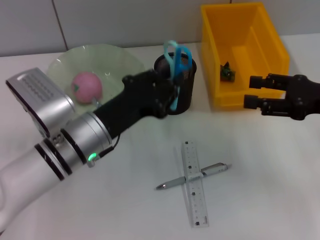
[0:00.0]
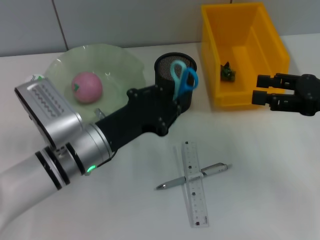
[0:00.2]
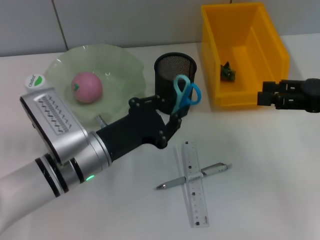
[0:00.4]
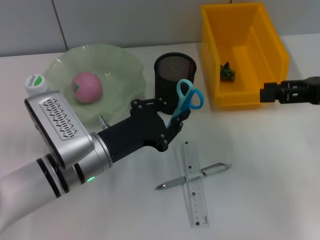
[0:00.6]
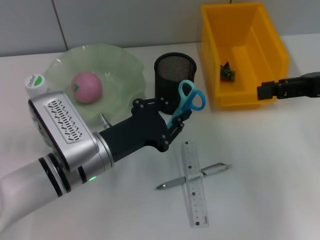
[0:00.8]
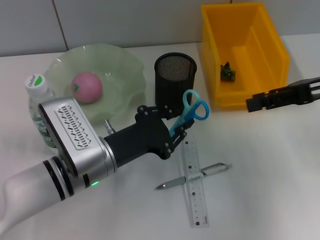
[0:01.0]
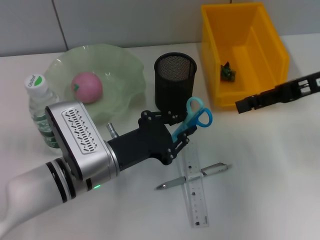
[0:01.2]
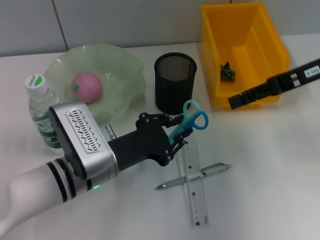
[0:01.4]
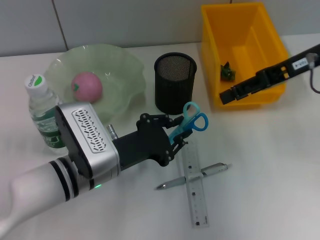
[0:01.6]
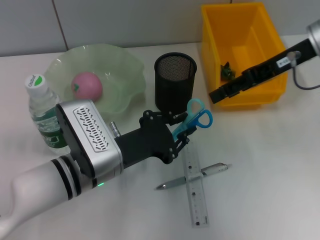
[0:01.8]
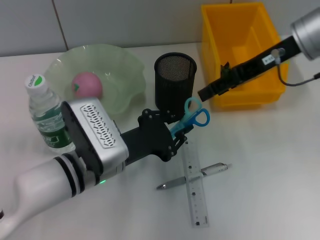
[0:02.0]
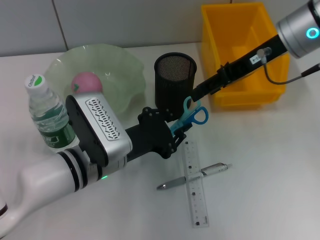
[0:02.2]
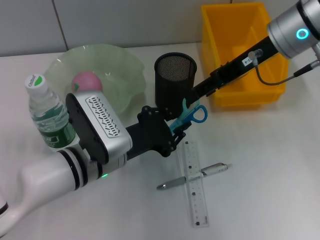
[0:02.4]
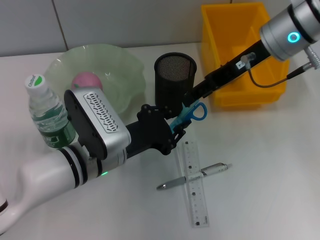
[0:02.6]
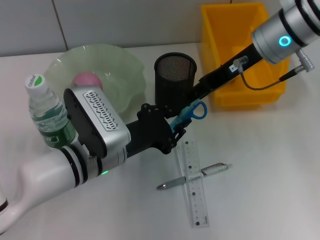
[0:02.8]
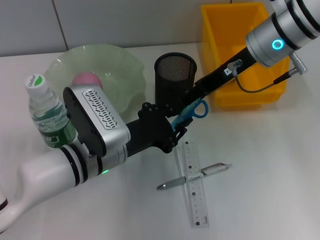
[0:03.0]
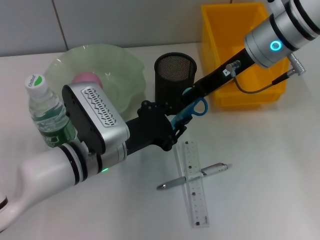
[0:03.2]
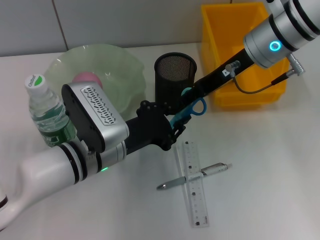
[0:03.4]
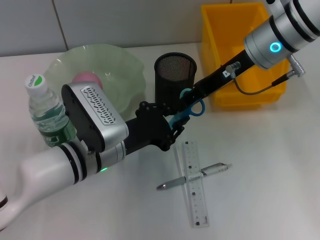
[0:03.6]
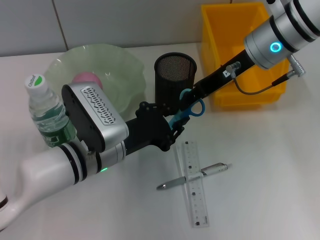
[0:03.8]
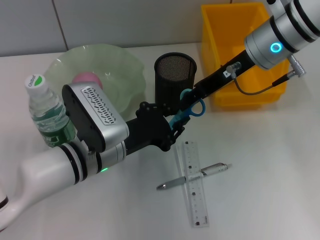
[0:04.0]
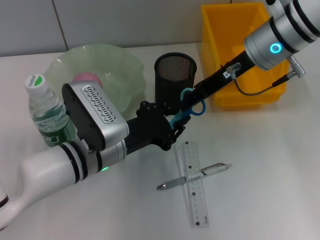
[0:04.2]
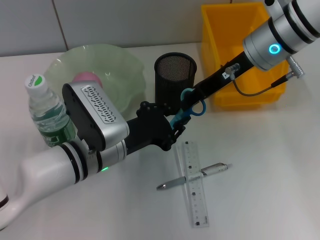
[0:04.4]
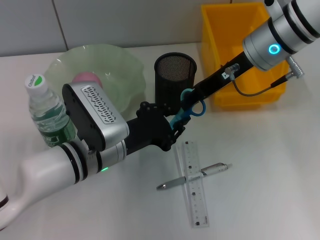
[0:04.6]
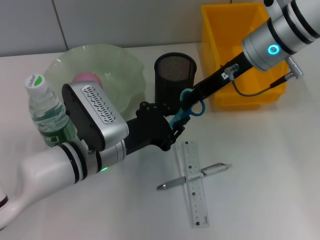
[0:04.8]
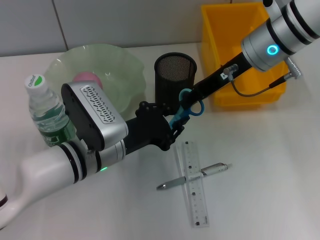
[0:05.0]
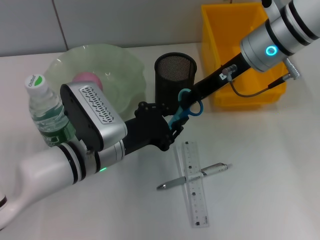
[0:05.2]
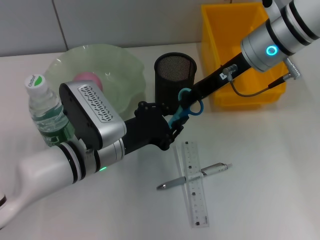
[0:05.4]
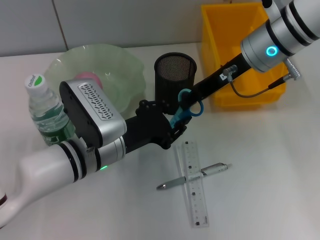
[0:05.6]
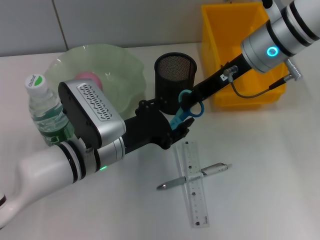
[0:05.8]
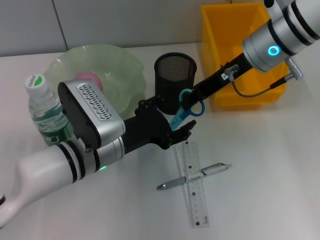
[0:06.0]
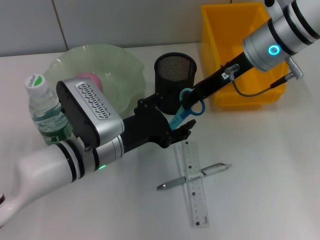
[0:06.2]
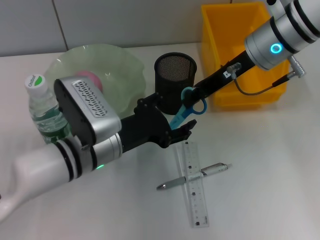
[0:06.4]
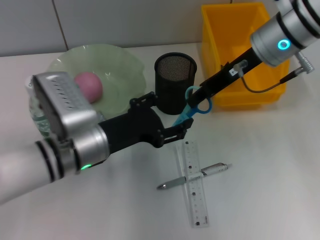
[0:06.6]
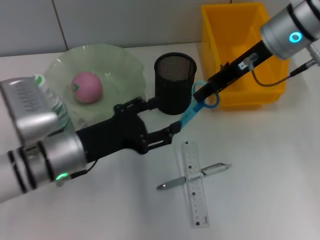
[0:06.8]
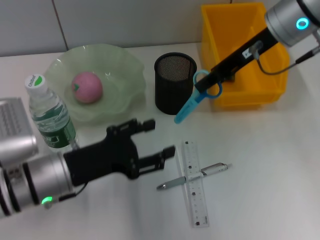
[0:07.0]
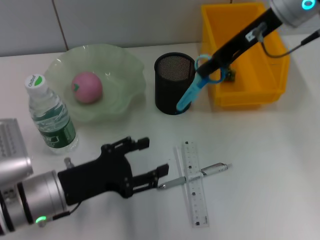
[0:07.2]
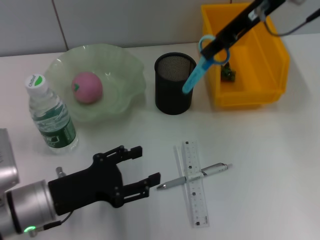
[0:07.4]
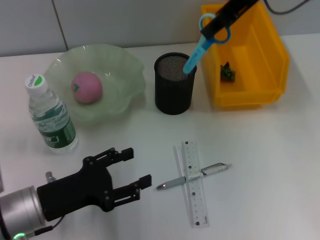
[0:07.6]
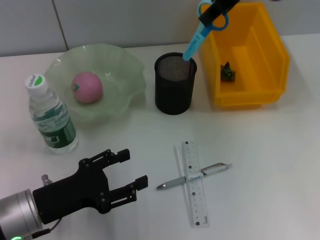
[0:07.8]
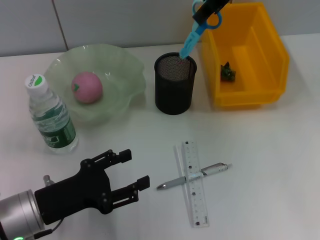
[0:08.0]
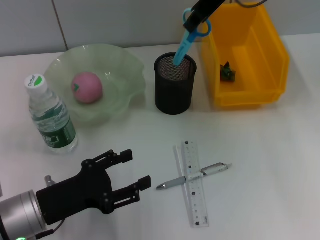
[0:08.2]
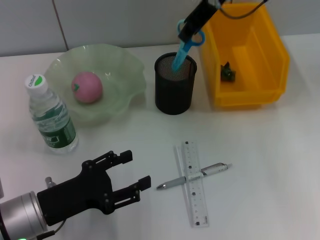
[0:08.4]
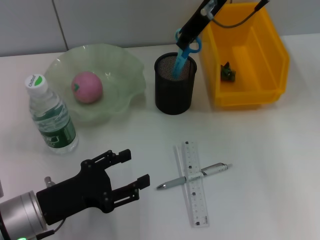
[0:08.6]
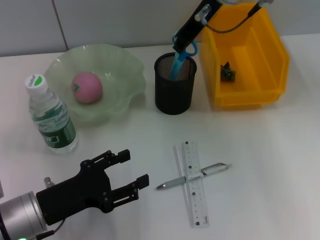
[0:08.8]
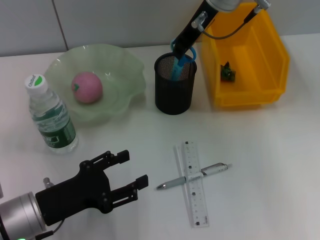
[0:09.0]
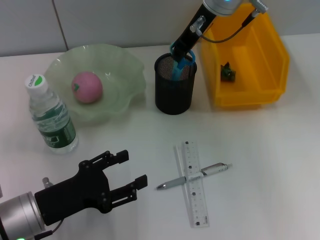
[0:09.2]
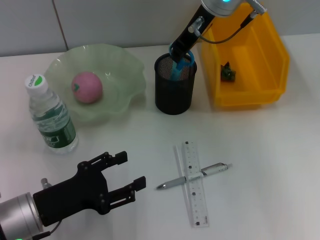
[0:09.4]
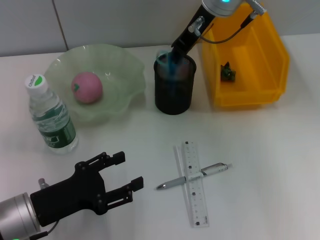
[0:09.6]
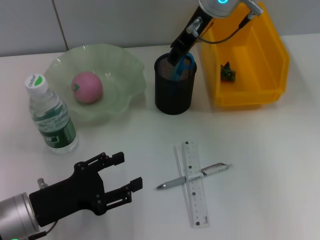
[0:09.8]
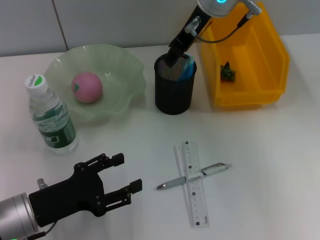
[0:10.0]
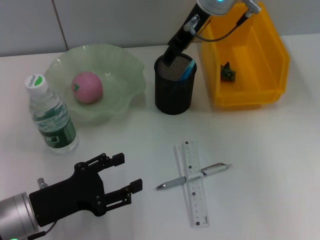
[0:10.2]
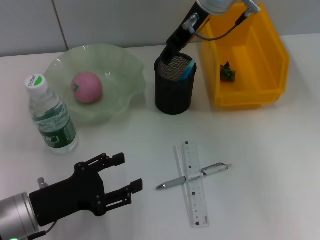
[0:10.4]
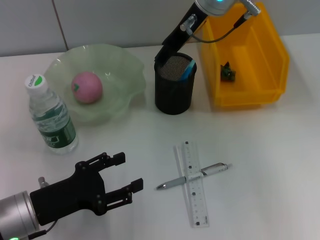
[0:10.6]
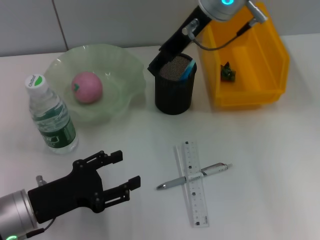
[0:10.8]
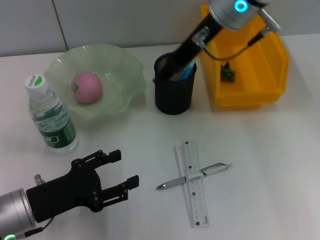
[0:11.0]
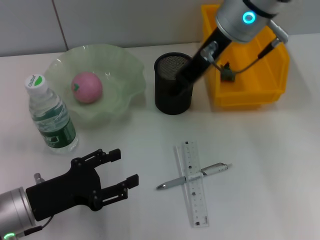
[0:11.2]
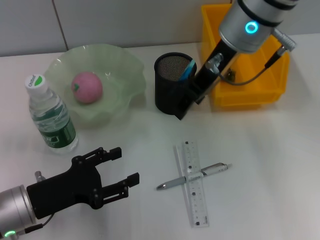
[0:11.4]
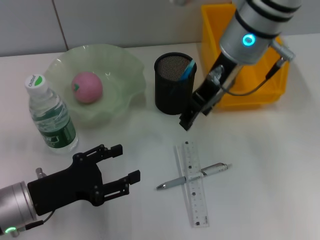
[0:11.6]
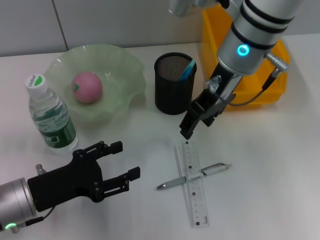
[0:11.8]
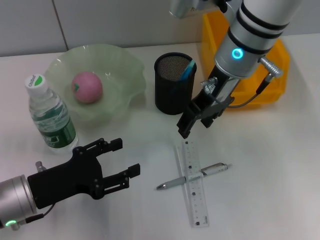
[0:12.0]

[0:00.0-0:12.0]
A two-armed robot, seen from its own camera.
Step, 0:00.0 to 0:05.4: Pass the blue scissors from the left hand to the right hand.
Step, 0:05.6 to 0:09.8: Place the blue scissors into the pen holder with the right hand.
0:00.0 to 0:01.6: The right gripper goes approximately 15 cm upward, forward and to the left.
0:01.6 to 0:03.0: The right gripper moves to the left, roughly 10 cm.
0:03.0 to 0:04.4: The right gripper closes its fingers.
0:04.4 to 0:06.0: Neither gripper changes place.
0:06.0 to 0:07.6: The right gripper goes about 10 cm upward. The left gripper heads to the left and backward, covering roughly 15 cm, and opens up.
0:07.6 to 0:09.0: The right gripper goes about 10 cm to the left and downward.
0:09.0 to 0:10.4: The right gripper opens.
0:10.4 to 0:12.0: The right gripper moves backward, some 5 cm.

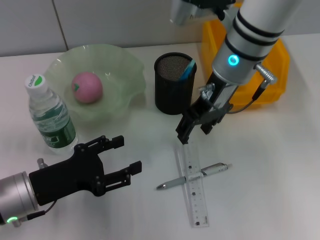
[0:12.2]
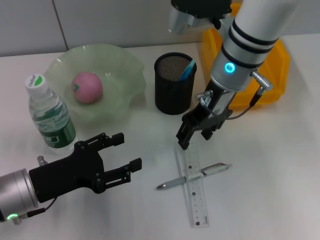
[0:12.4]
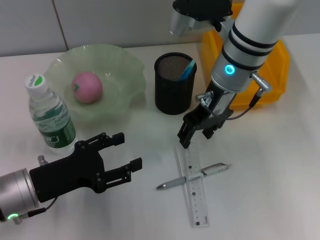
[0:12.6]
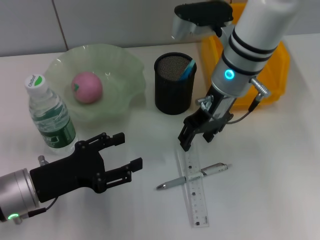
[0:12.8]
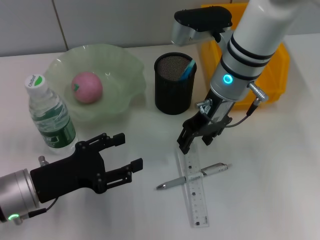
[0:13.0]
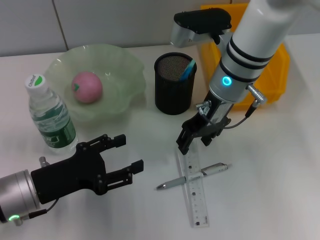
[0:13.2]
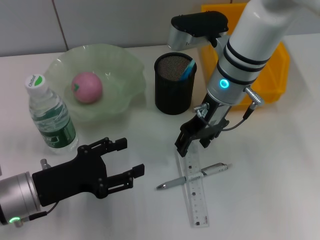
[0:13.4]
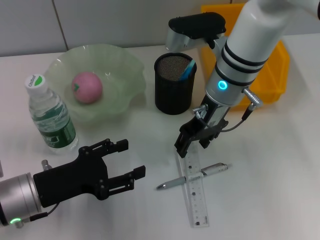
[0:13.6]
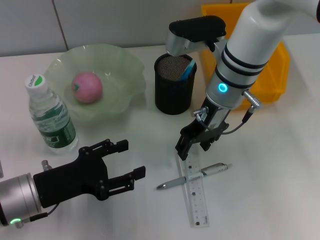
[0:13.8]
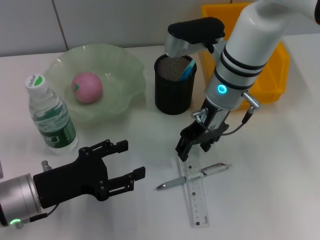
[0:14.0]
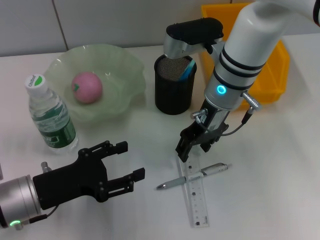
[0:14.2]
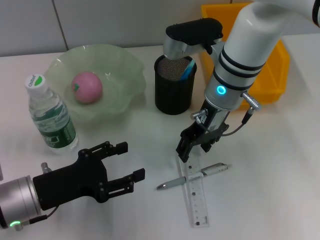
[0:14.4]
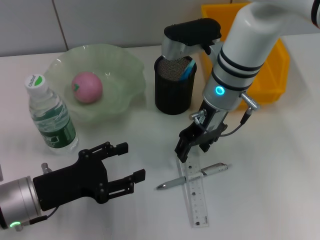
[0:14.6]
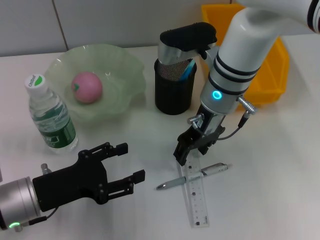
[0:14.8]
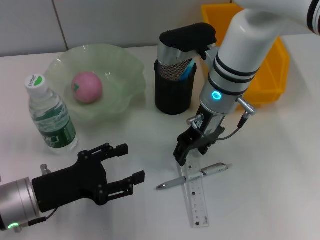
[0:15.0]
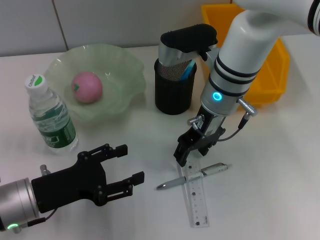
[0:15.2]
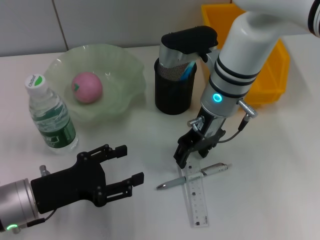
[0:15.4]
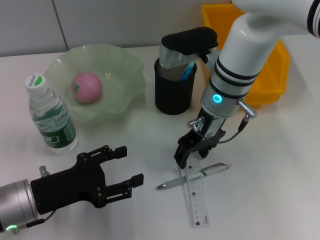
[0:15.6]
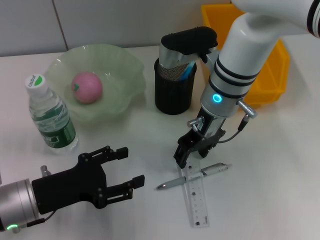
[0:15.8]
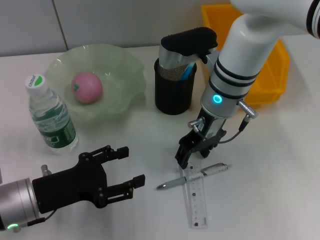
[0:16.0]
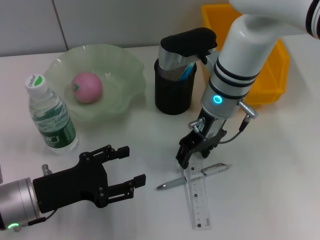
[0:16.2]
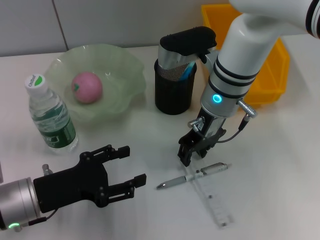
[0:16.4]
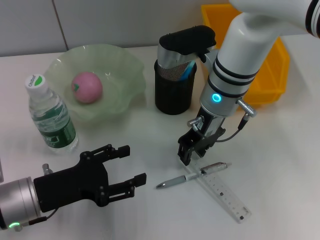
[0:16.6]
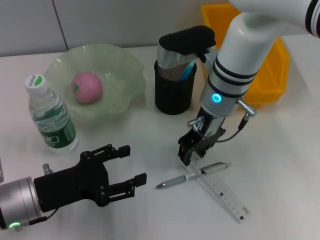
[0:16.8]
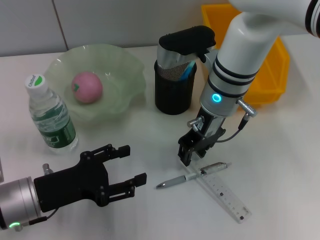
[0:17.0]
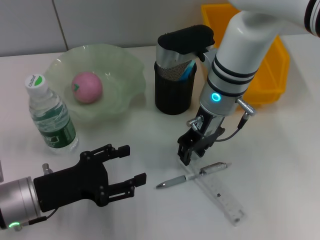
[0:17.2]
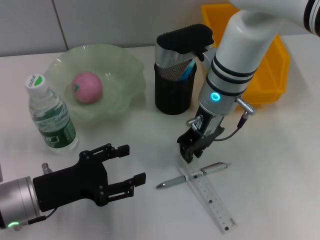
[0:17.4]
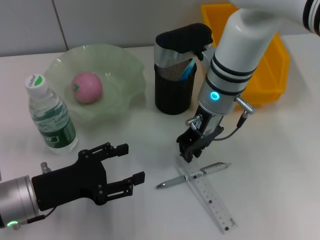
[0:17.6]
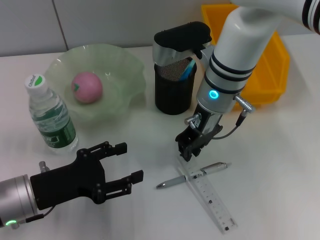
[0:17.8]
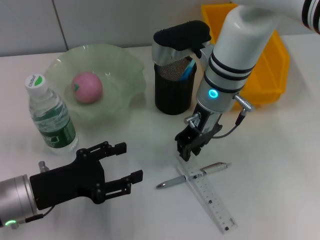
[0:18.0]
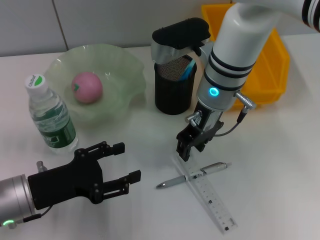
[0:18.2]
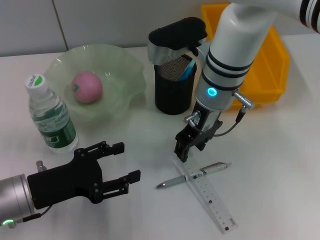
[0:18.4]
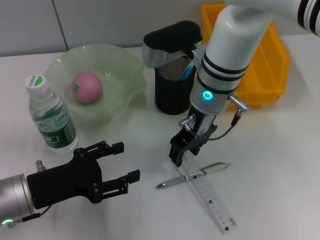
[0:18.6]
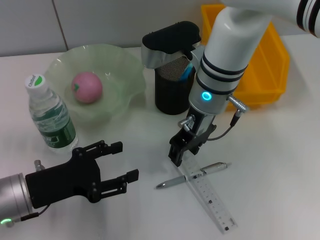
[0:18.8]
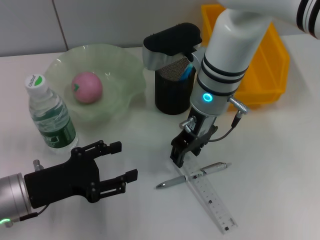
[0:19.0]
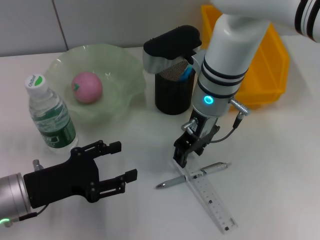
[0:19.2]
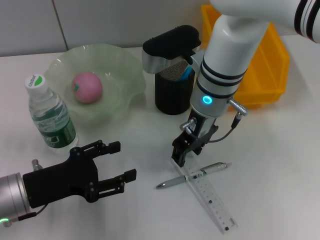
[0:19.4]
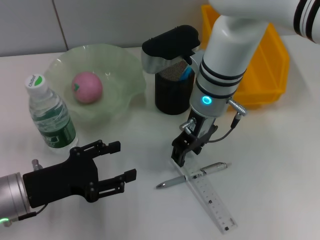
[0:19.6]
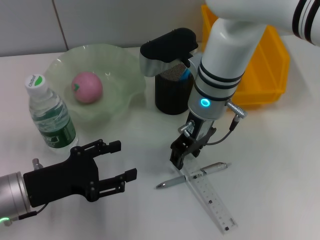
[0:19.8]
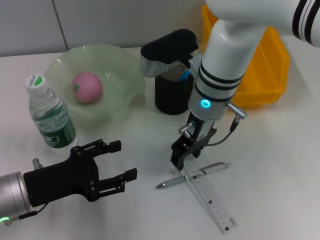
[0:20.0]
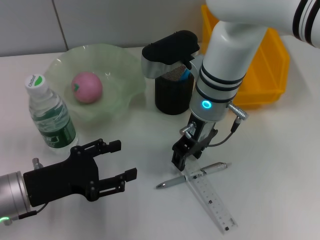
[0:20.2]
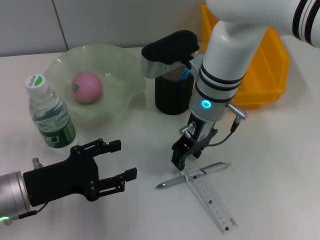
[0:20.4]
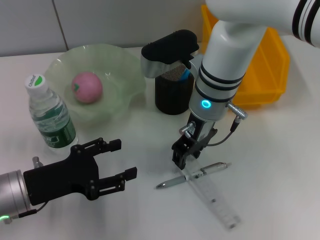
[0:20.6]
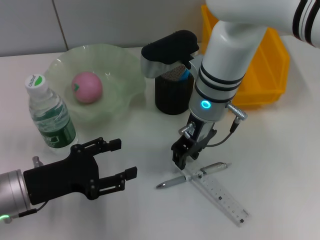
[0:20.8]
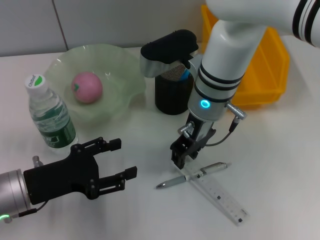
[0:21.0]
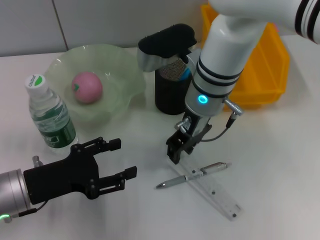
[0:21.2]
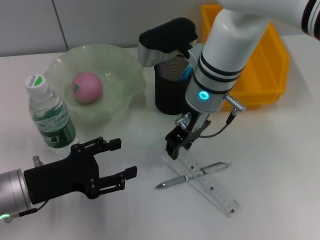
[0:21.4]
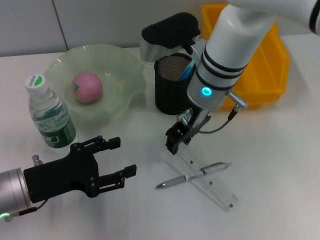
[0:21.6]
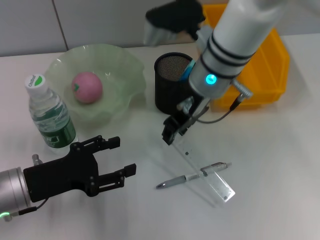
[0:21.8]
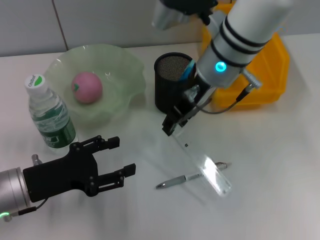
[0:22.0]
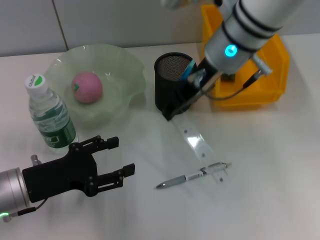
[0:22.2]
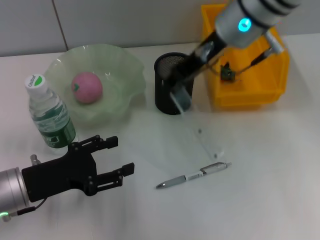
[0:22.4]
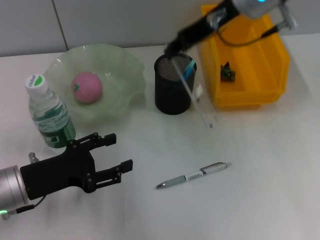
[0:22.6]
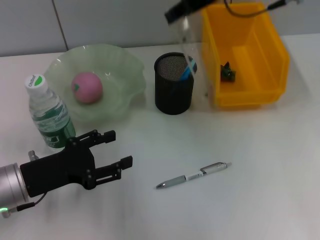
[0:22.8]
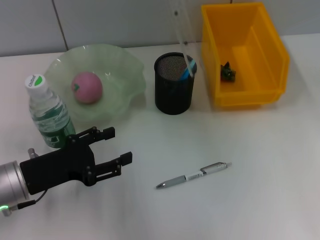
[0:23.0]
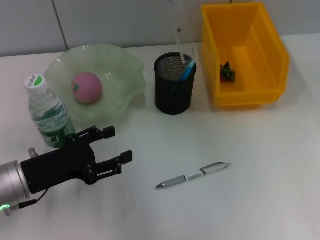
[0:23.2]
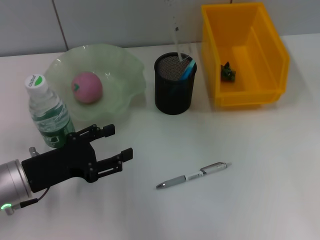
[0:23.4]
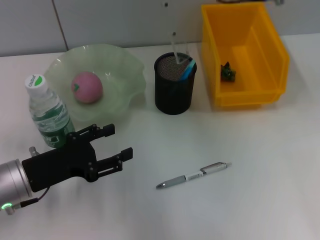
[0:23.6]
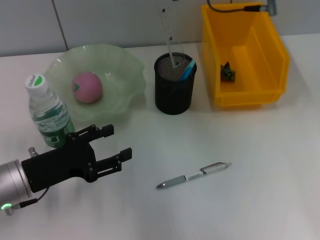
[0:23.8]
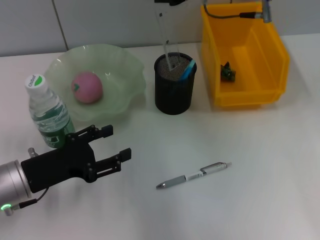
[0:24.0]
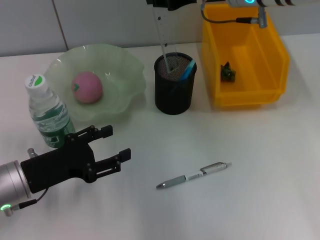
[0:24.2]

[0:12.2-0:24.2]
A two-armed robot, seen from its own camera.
Step, 0:12.2 to 0:20.8: Grab the ruler with the right hand.
0:12.2 to 0:13.8: There are only small adjustments of the grippers.
0:13.8 to 0:15.2: Both grippers stay about where they are.
0:15.2 to 0:18.2: Both grippers stay about where they are.
0:18.2 to 0:19.8: There are only small adjustments of the grippers.
0:19.8 to 0:21.2: The two grippers keep their place.
0:21.2 to 0:22.6: The right gripper travels upward and to the right by approximately 15 cm.
